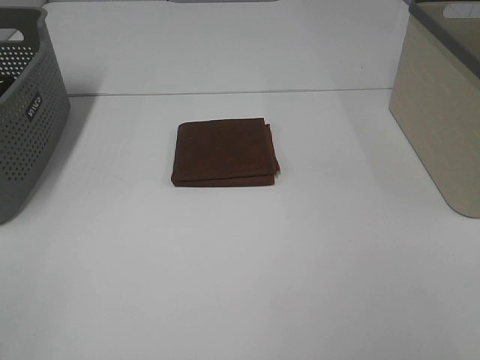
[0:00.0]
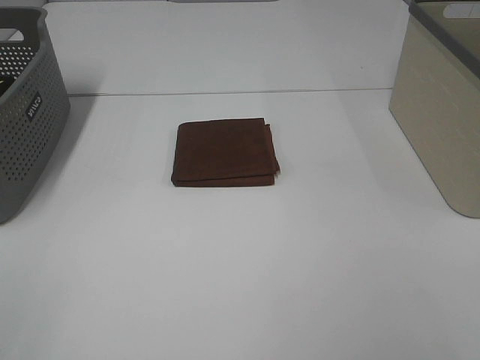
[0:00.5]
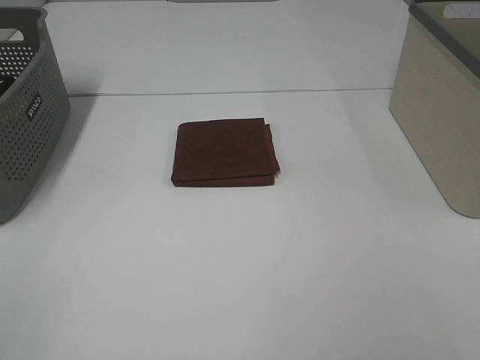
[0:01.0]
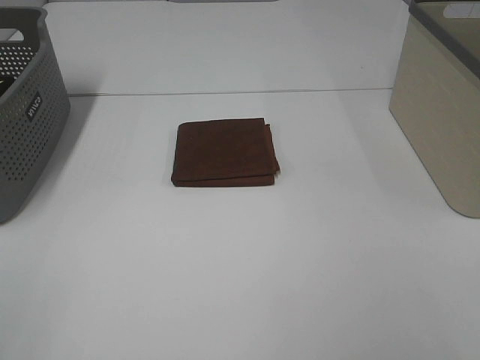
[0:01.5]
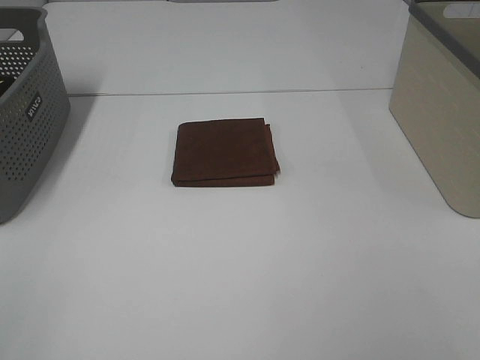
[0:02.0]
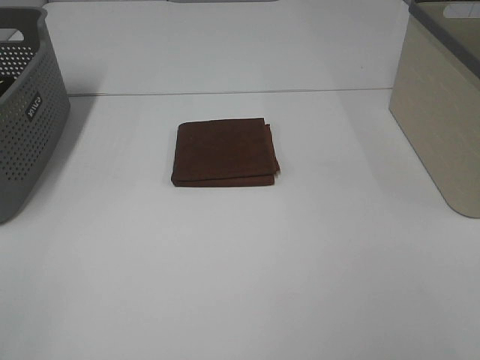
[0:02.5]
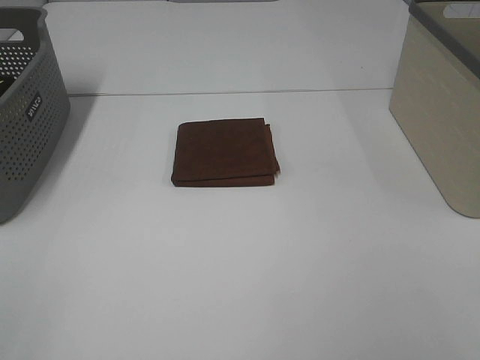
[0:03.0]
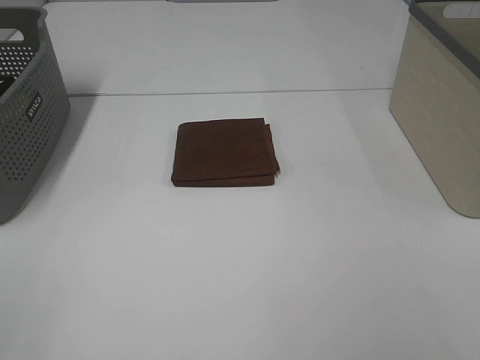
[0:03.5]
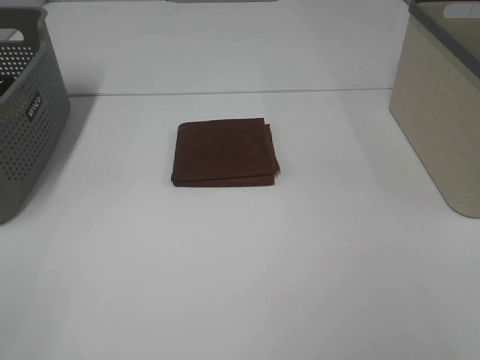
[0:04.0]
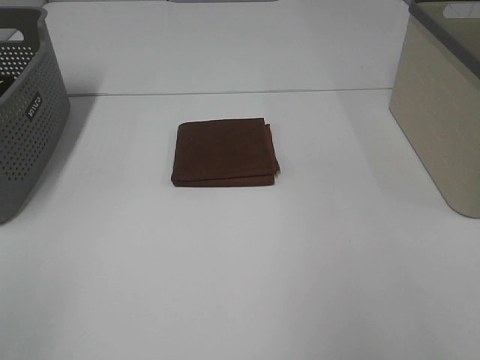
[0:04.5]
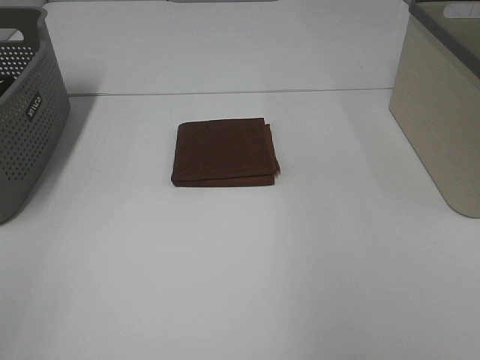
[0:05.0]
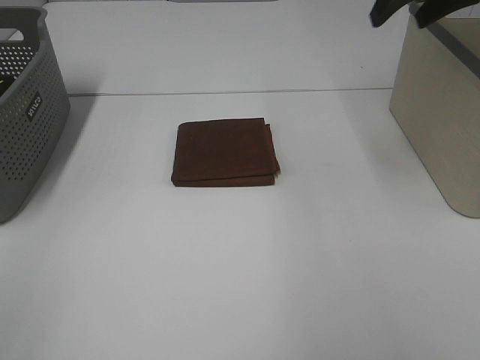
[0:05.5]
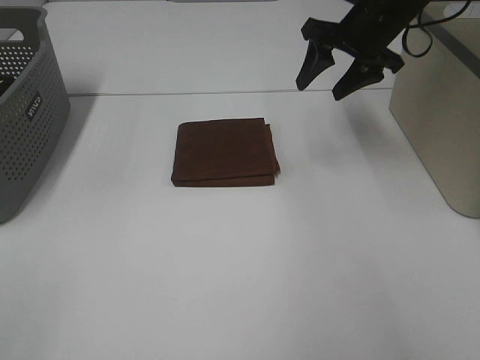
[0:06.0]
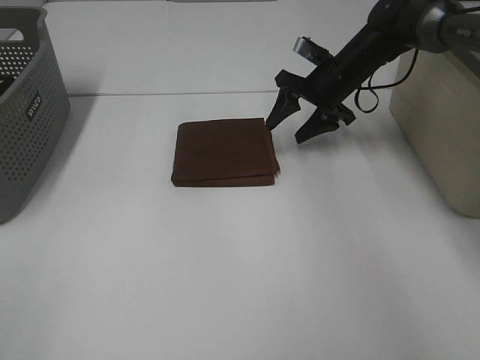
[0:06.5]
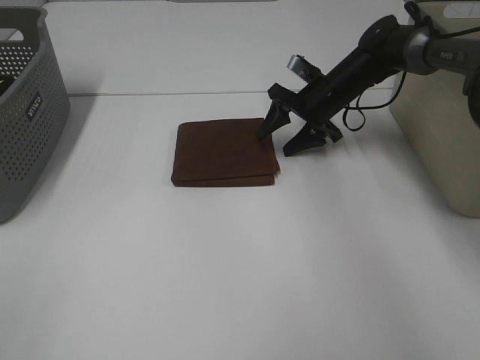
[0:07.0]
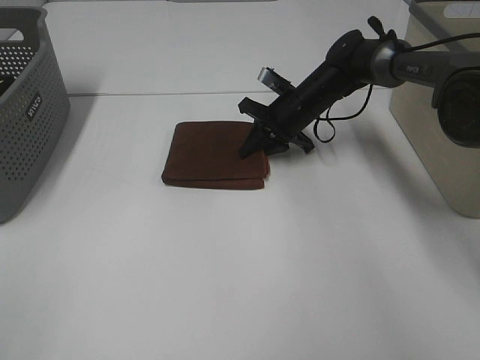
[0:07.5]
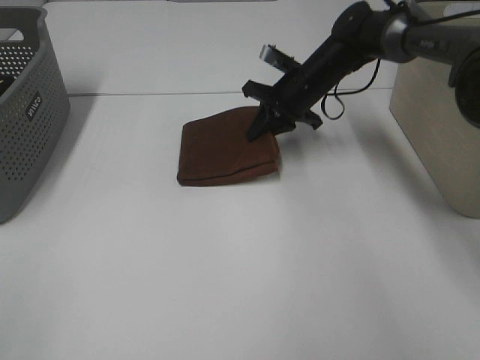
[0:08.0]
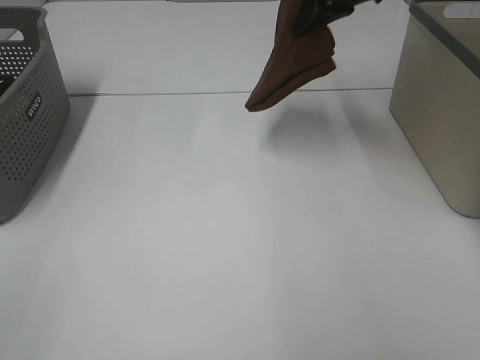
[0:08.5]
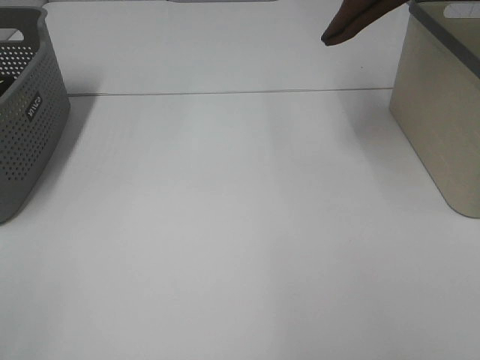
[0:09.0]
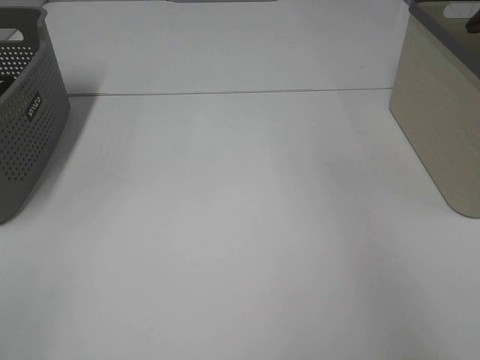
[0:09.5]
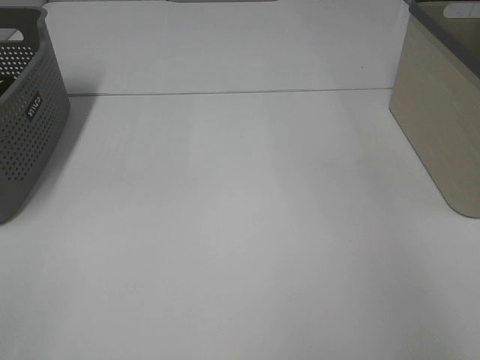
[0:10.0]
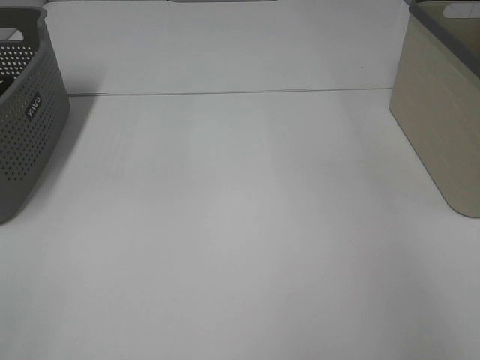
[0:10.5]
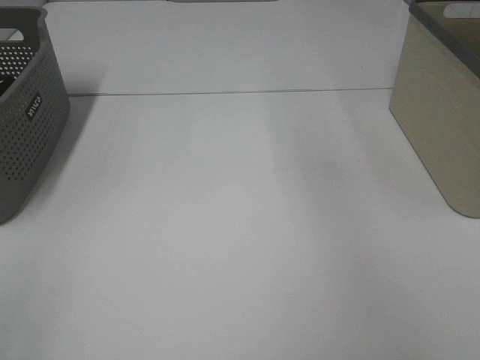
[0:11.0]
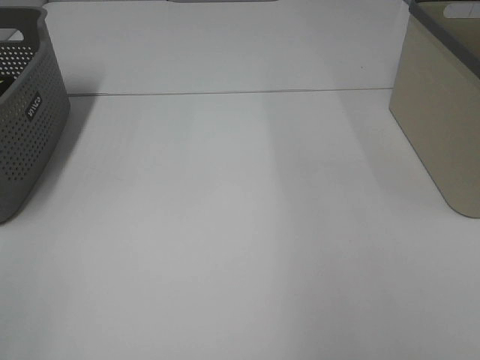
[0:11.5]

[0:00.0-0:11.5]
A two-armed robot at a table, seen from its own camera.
Step, 0:00.0 to 0:07.5: Right hand: grab the folded brown towel.
Step, 0:08.0 to 0:10.5: Right hand: place the brown towel in right basket.
0:00.0 to 0:04.0: Both grippers stay about where they are.
0:04.0 to 0:06.0: The right gripper goes roughly 50 cm forward.
0:06.0 to 0:07.5: The right gripper goes roughly 15 cm downward and to the left, and closes up.
0:07.5 to 0:09.5: The right gripper goes about 40 cm upward and to the right.

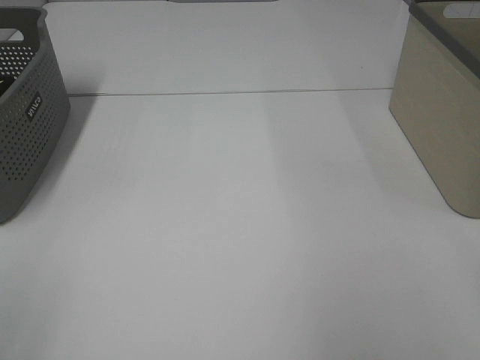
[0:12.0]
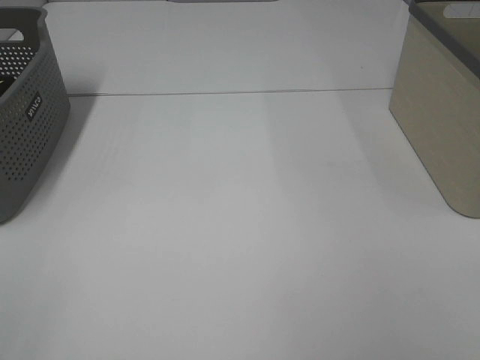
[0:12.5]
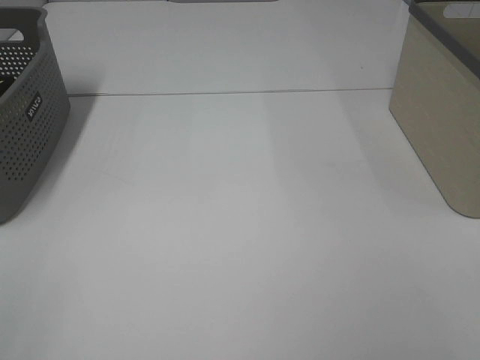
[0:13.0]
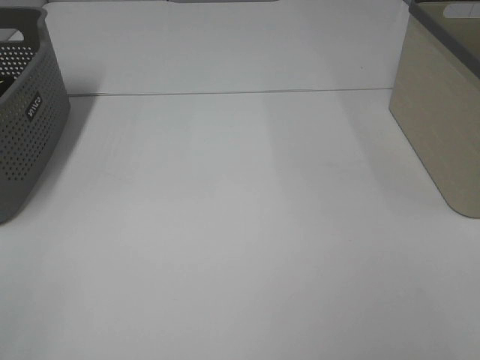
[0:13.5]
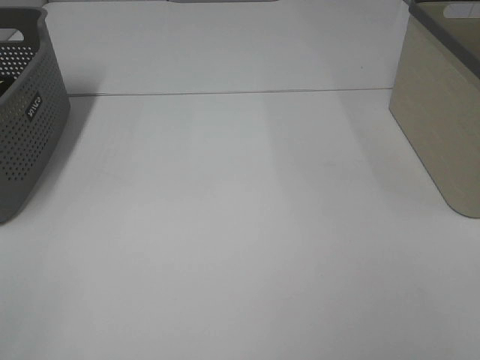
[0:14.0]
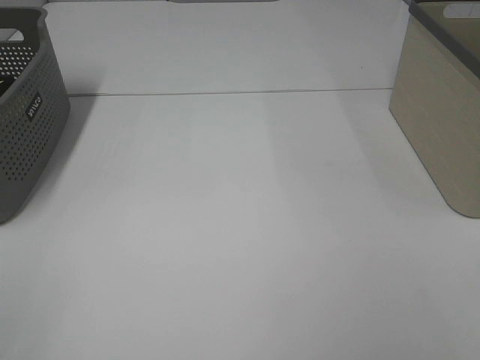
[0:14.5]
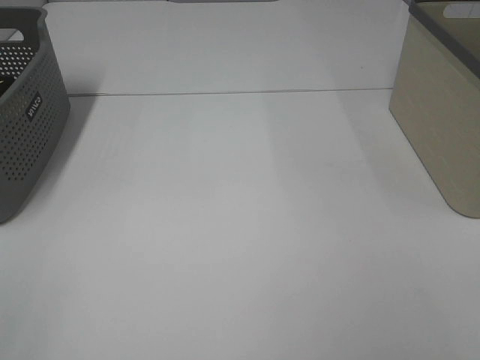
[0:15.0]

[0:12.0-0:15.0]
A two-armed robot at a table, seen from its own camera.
0:13.5 to 0:15.0: The two grippers keep their place.

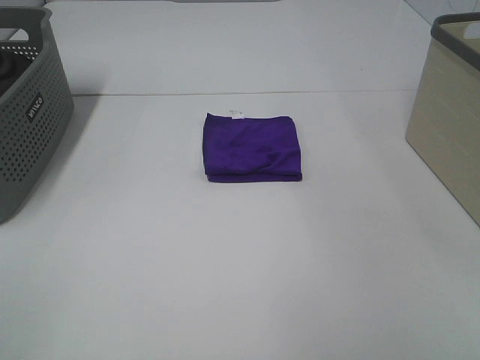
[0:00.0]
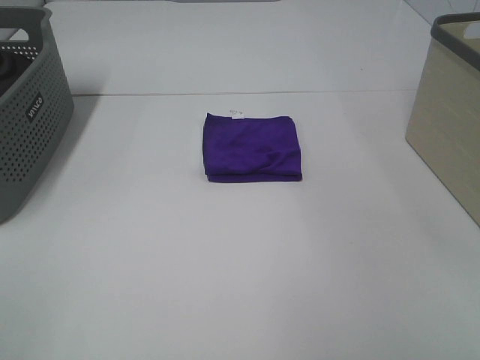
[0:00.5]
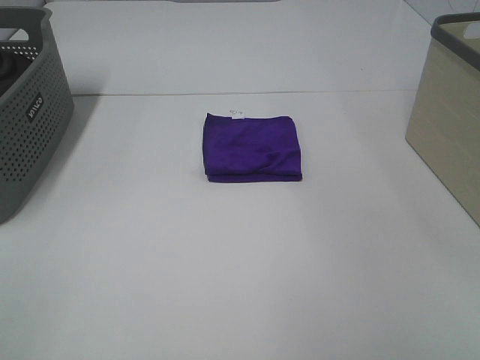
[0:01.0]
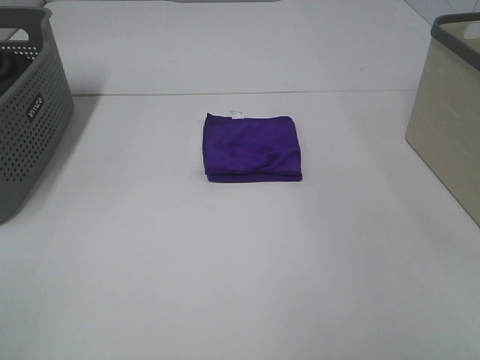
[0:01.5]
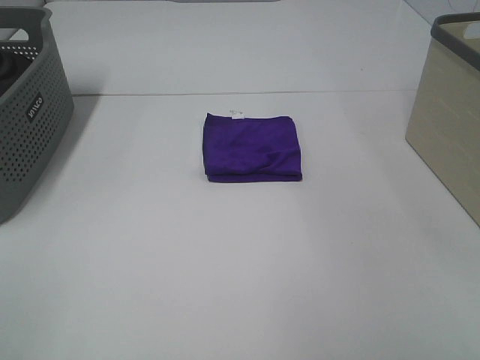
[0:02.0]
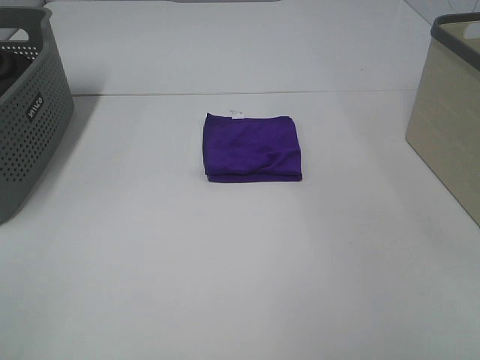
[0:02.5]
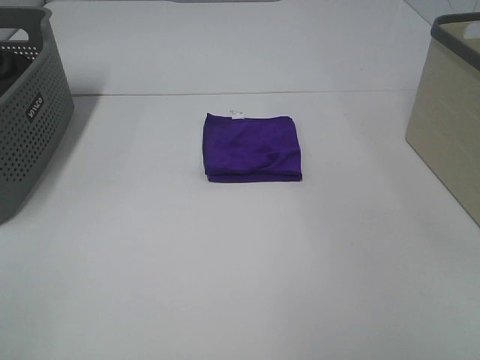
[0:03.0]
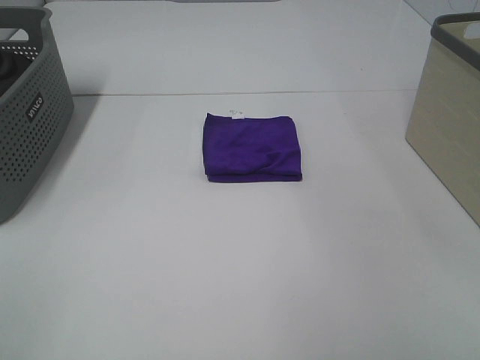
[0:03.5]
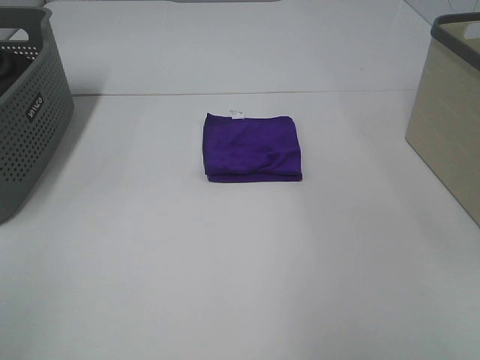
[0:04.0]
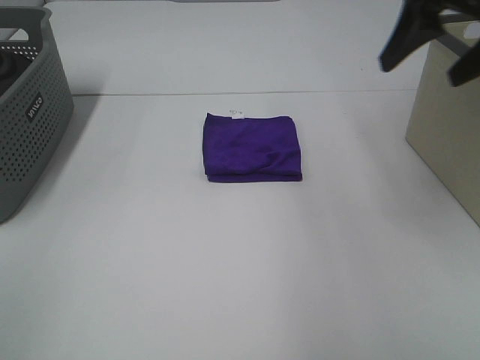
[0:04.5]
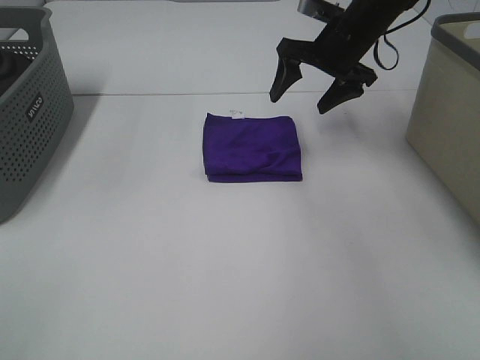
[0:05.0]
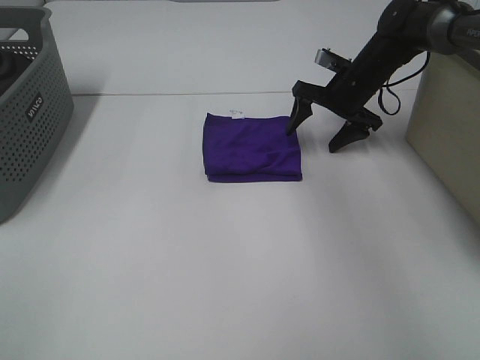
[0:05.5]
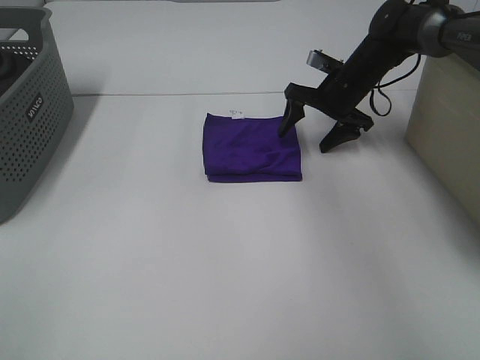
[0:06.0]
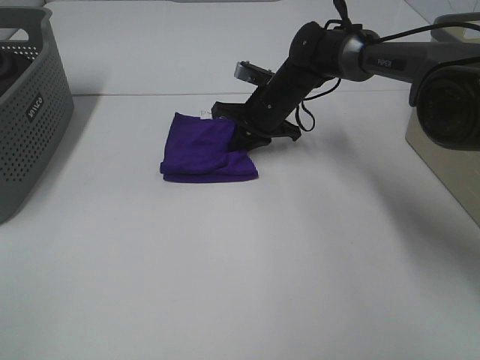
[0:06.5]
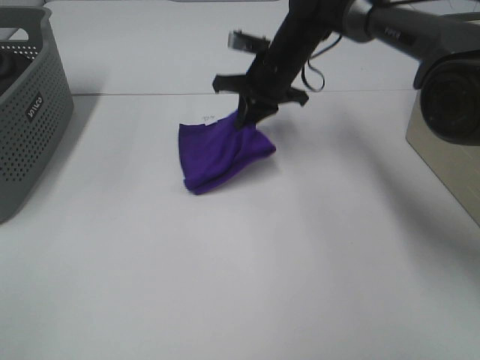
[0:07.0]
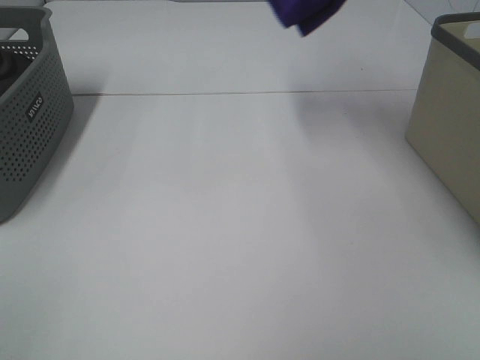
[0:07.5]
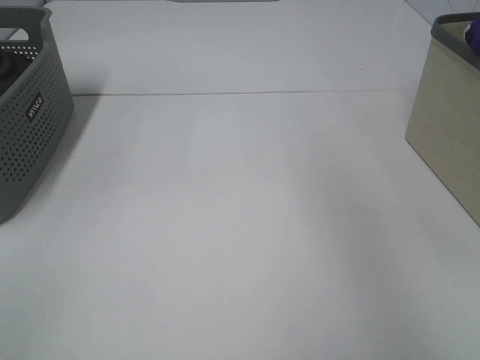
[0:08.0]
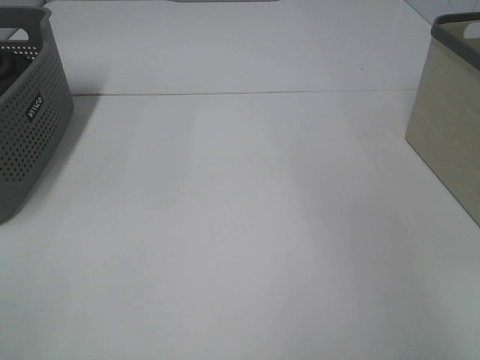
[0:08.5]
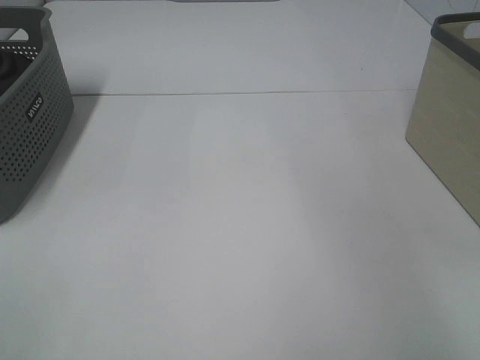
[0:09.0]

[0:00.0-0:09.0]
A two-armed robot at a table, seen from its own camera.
Step, 0:00.0 to 0:06.5: Right hand: grab the folded purple towel.
Step, 0:07.0 to 0:08.5: Right hand: place the purple towel in right basket.
0:00.0 to 0:02.0: Both grippers stay about where they are.
0:02.0 to 0:04.5: The right gripper shifts some 35 cm forward.
0:04.5 to 0:07.0: The right gripper travels to the left, forward and downward by about 25 cm, and closes its fingers.
0:07.0 to 0:09.0: The right gripper is displaced to the right by roughly 35 cm, and opens up.

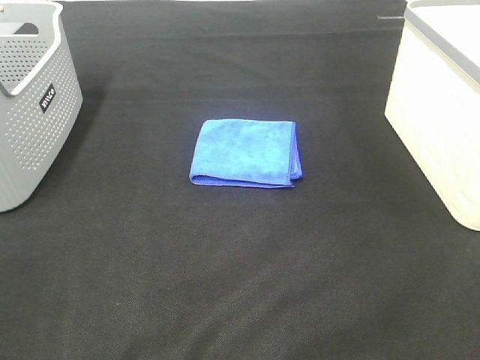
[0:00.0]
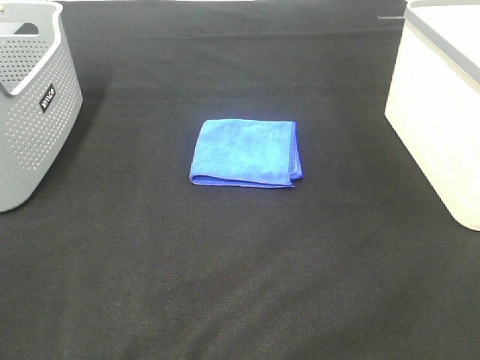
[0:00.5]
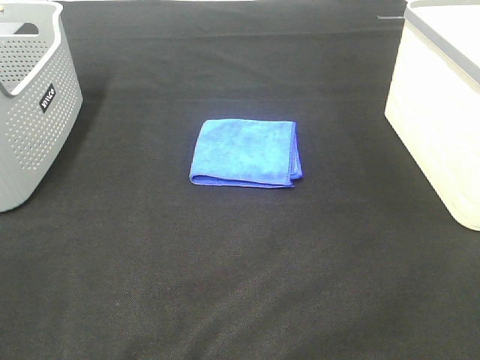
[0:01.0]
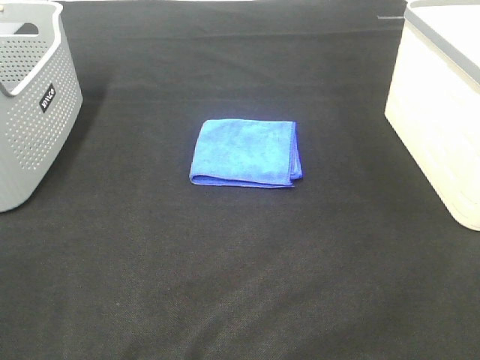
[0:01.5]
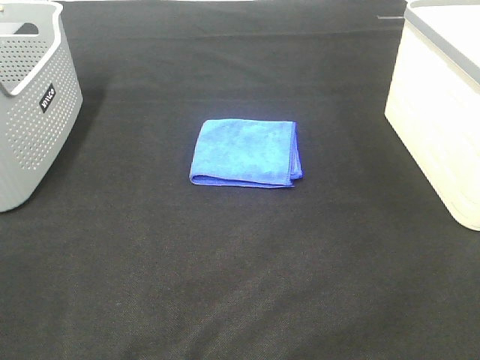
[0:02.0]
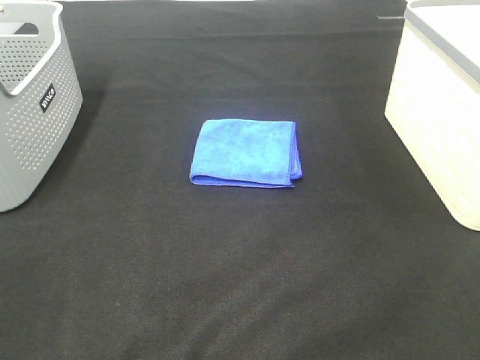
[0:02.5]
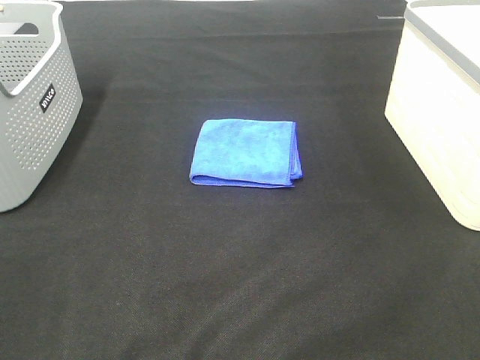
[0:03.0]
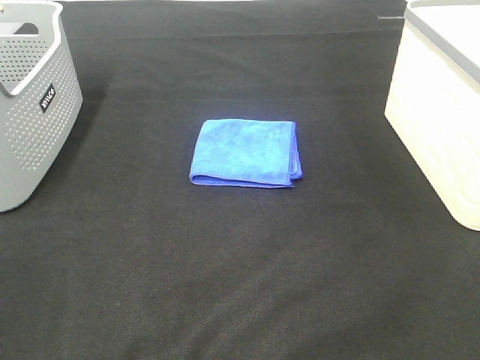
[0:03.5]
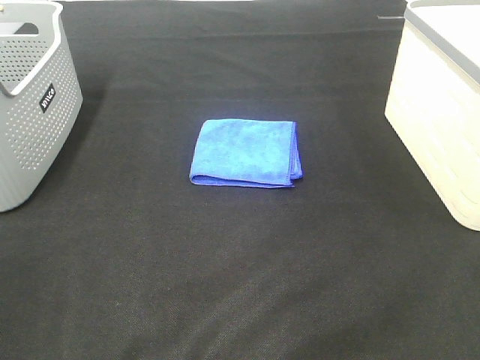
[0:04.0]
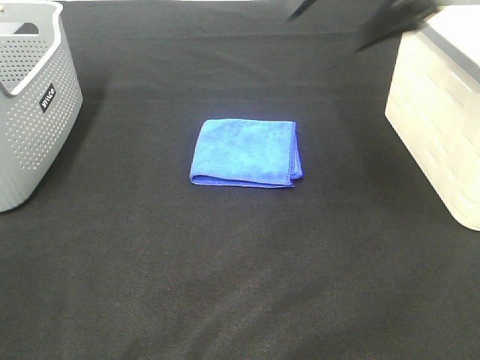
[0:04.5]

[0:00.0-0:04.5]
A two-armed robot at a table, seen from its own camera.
0:00.0 to 0:02.0: Neither gripper changes place.
0:02.0 to 0:04.5: The right gripper is displaced forward by about 40 cm.
